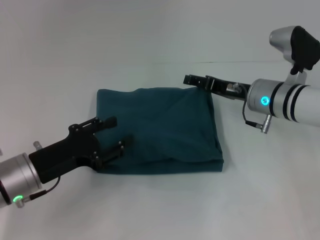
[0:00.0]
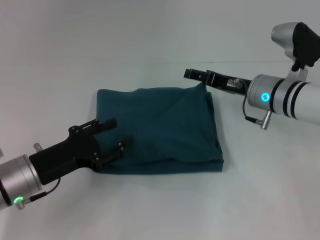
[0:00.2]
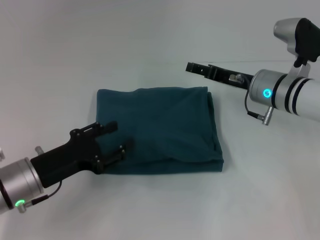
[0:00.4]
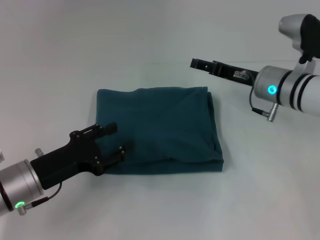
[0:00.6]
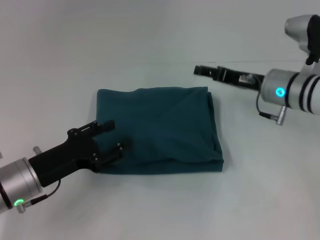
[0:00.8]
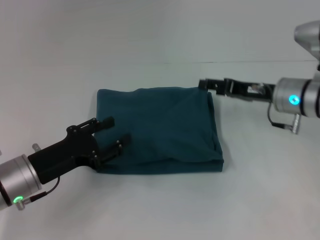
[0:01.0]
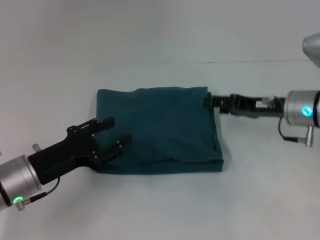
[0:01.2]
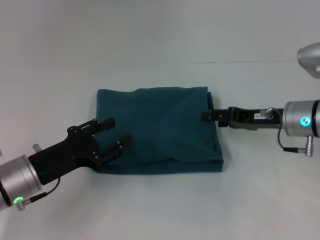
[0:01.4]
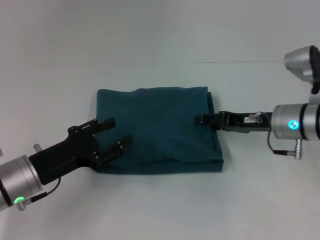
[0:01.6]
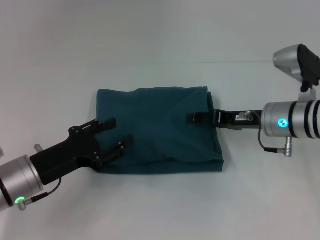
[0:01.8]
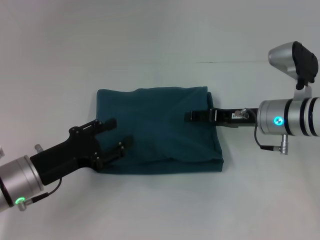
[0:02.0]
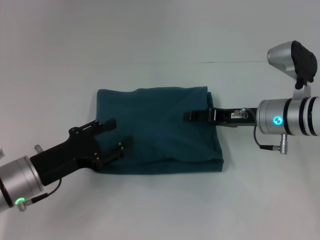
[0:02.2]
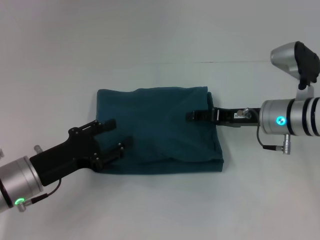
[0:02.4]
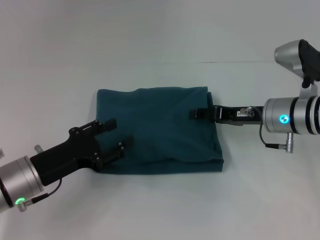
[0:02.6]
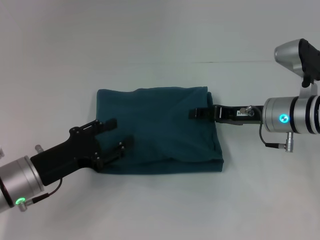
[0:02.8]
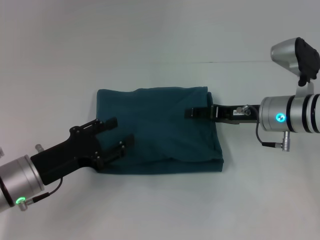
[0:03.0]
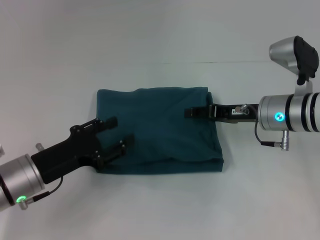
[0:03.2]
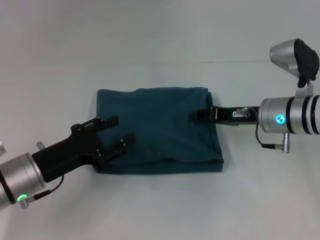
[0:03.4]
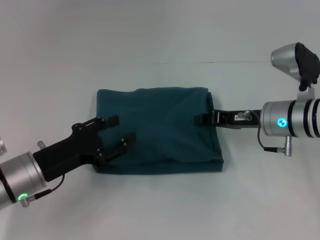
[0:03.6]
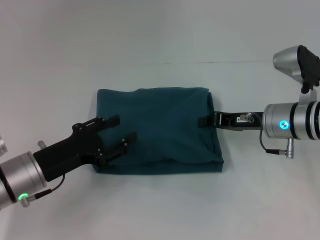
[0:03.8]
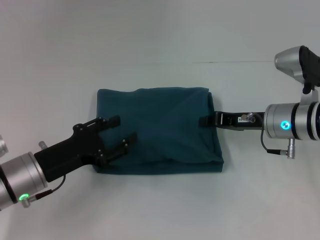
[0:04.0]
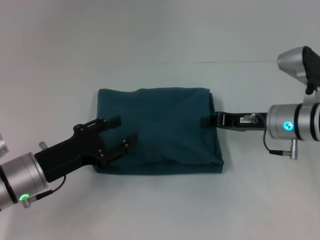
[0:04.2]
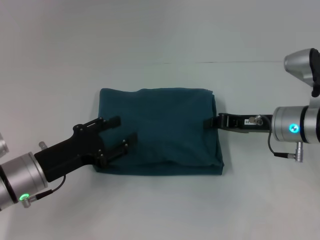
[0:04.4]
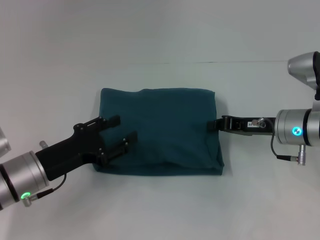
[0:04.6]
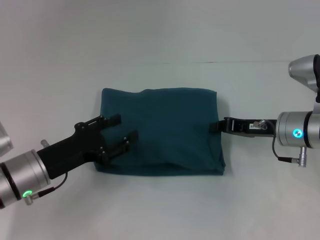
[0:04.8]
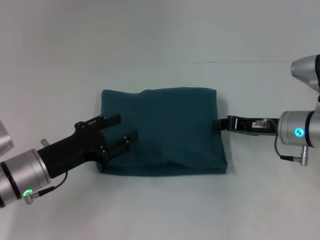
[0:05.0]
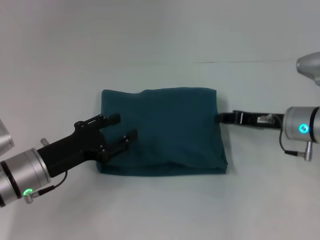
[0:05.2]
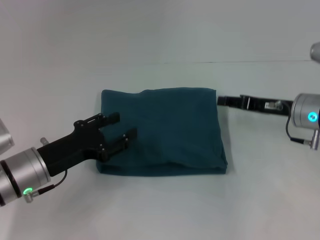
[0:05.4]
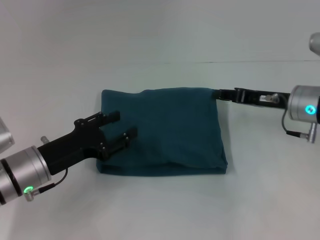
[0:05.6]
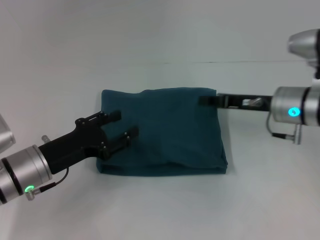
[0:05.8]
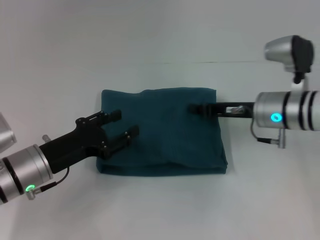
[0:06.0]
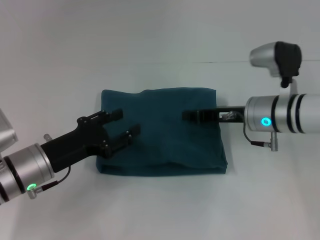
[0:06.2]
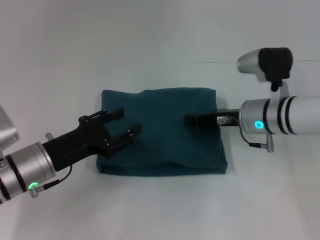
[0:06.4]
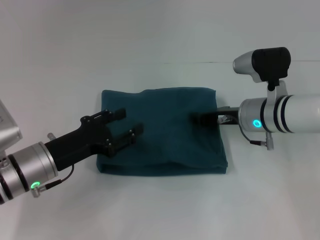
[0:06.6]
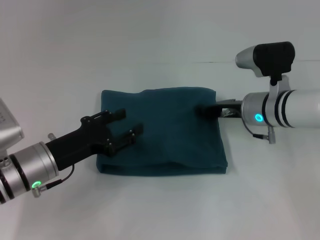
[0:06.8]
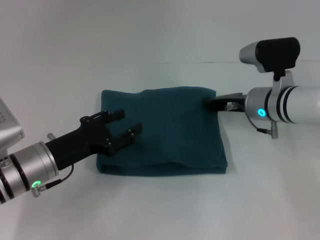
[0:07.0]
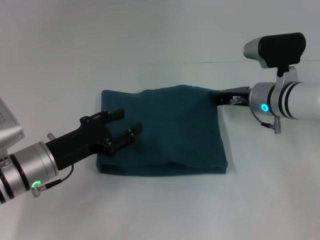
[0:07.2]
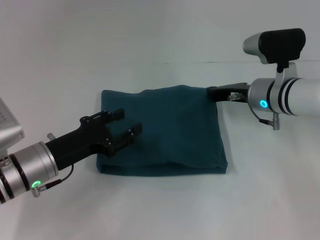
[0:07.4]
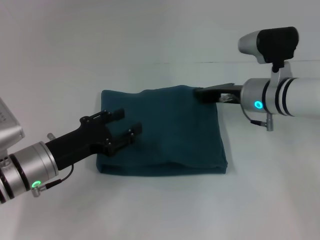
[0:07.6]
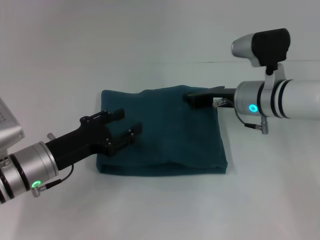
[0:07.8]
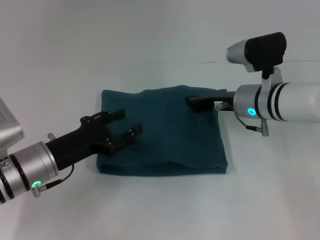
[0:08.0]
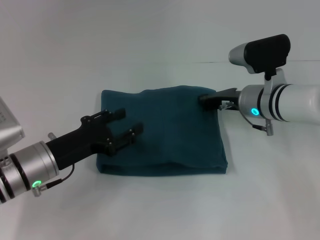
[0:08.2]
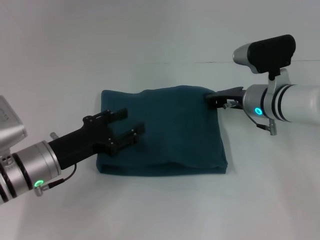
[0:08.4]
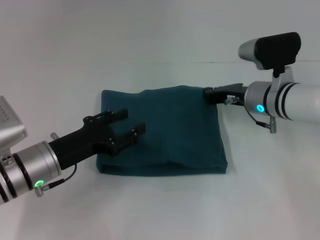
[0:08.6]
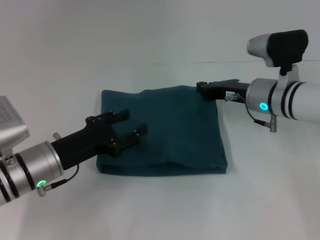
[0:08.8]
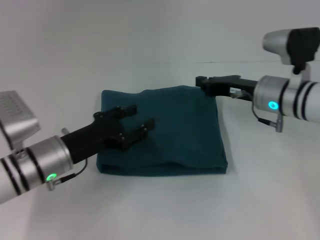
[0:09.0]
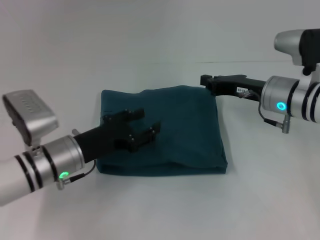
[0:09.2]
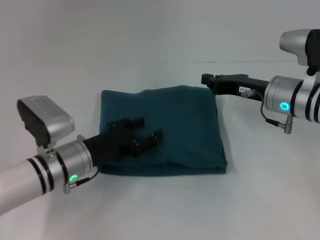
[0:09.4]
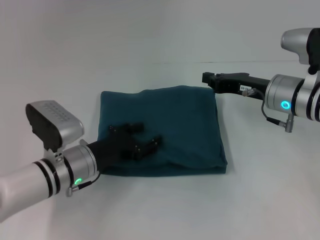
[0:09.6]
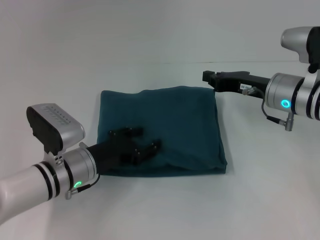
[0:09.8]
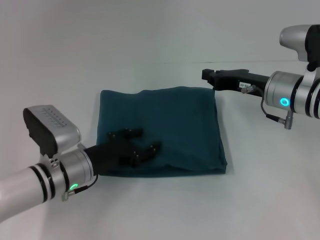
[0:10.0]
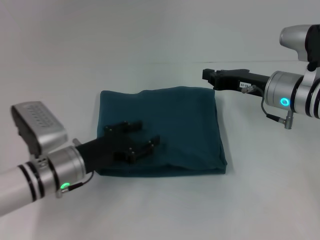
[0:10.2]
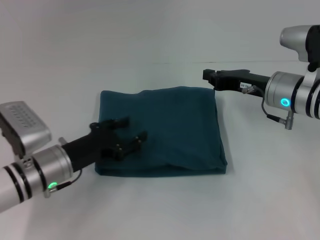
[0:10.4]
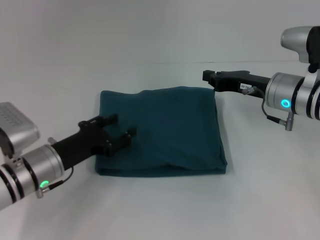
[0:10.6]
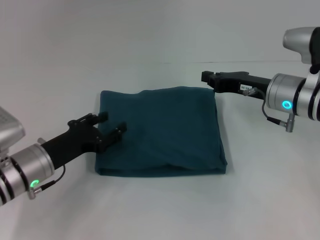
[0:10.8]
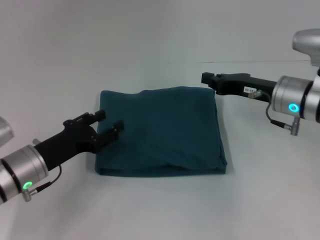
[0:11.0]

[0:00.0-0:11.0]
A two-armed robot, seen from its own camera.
0:00.0 to 0:03.2: The grippers stay close to where they were, moving slightly.
0:03.2 to 0:04.8: The right gripper closes.
0:04.8 to 0:06.2: The right gripper shifts by some 5 cm, and opens and closes again.
0:07.8 to 0:09.4: The left gripper ends up some 5 cm from where it was.
0:09.4 to 0:11.0: The left gripper goes approximately 5 cm to the left.

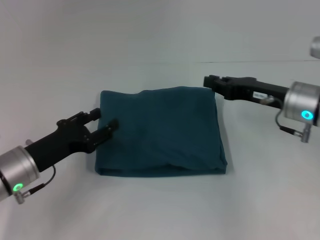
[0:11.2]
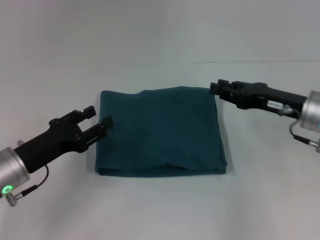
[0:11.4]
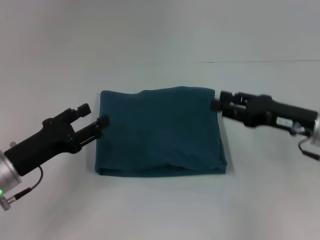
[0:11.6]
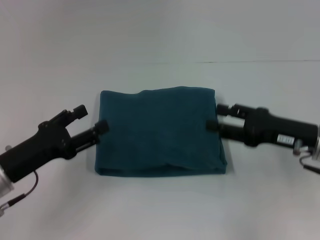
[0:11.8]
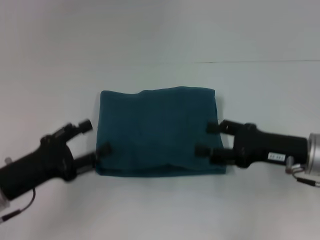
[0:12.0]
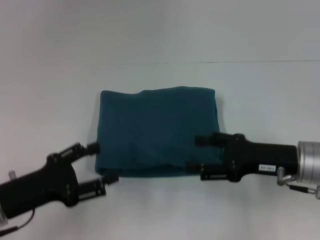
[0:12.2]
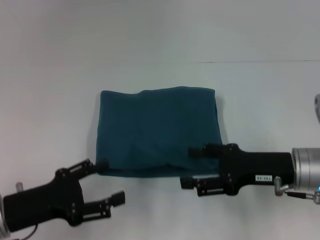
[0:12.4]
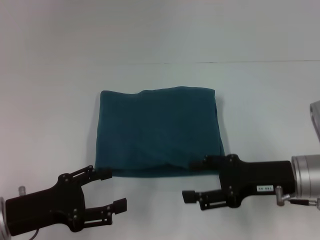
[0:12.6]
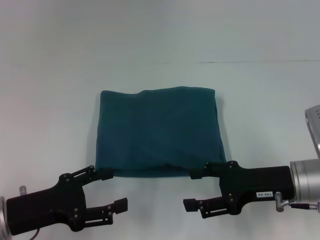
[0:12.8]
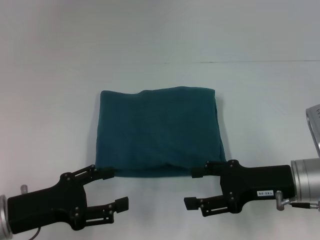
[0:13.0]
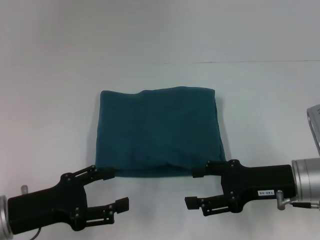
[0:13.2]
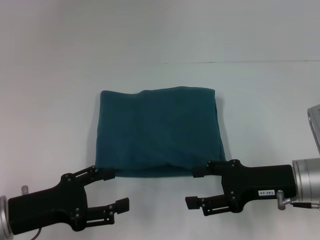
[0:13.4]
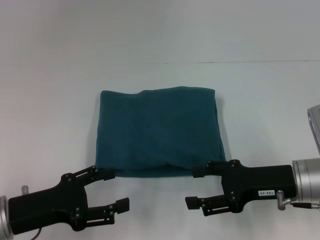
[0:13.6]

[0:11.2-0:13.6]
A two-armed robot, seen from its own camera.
0:11.2 to 0:12.4: The two grippers go approximately 5 cm backward. The right gripper opens its fingers.
0:12.4 to 0:13.6: The grippers stay close to where they were, moving slightly.

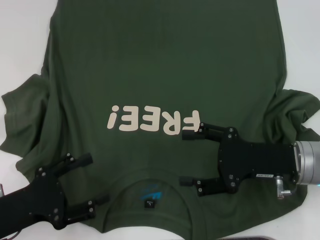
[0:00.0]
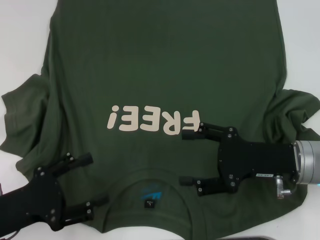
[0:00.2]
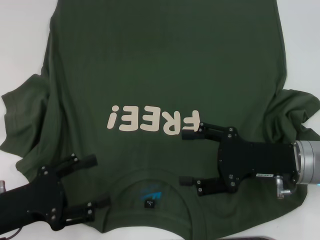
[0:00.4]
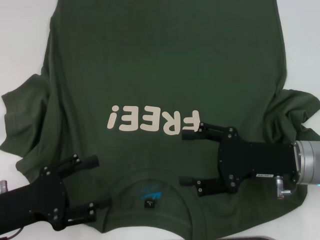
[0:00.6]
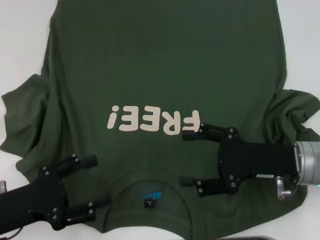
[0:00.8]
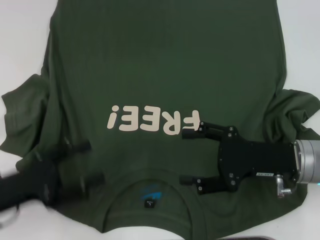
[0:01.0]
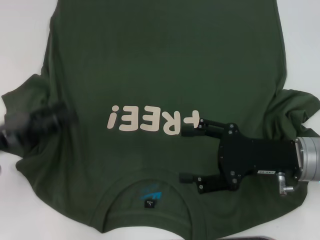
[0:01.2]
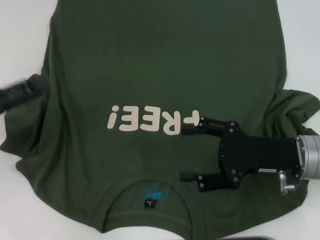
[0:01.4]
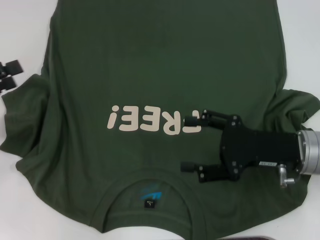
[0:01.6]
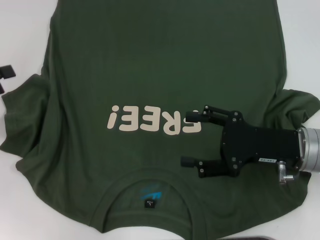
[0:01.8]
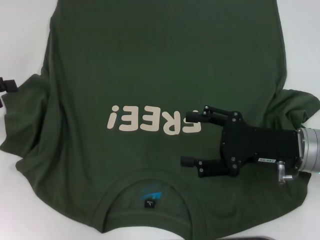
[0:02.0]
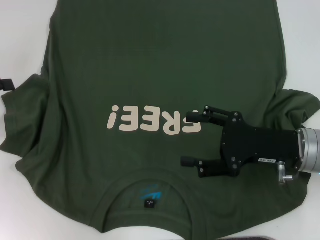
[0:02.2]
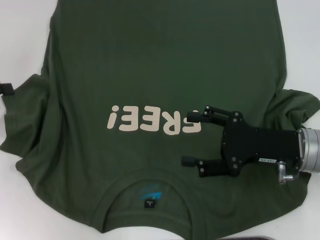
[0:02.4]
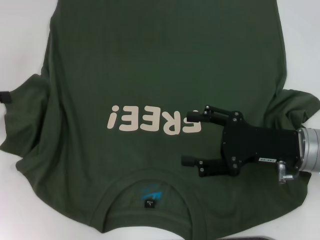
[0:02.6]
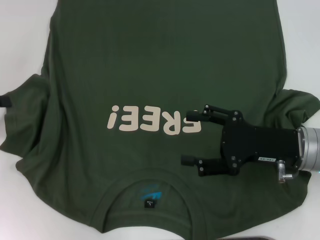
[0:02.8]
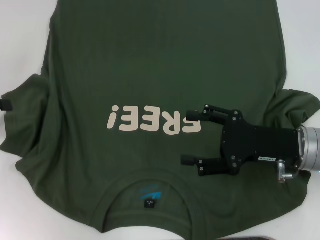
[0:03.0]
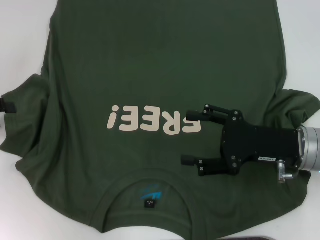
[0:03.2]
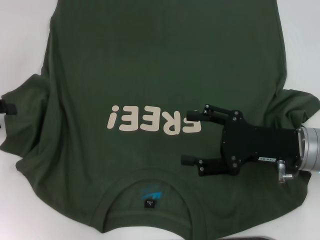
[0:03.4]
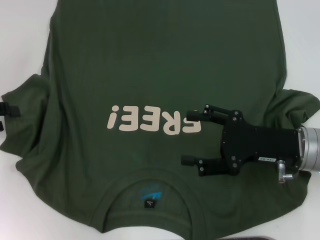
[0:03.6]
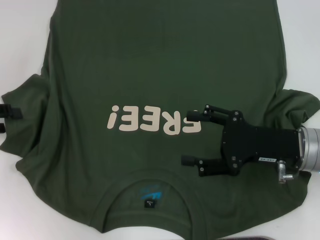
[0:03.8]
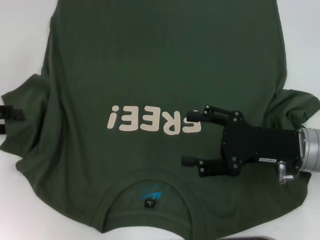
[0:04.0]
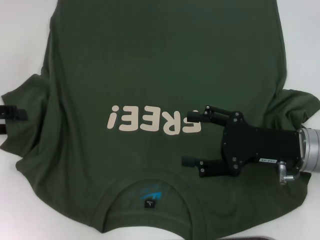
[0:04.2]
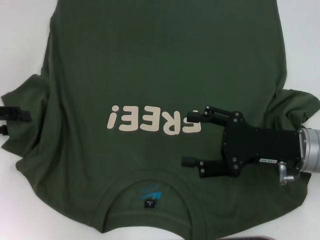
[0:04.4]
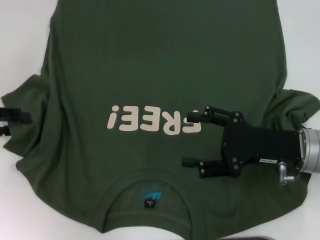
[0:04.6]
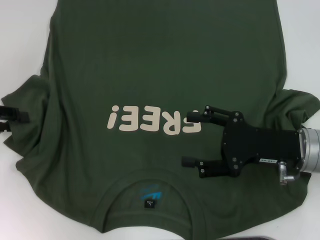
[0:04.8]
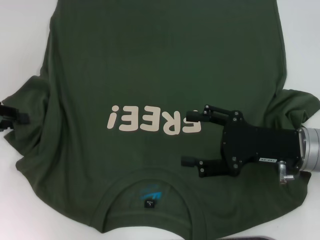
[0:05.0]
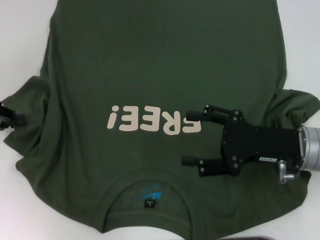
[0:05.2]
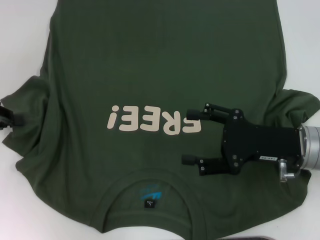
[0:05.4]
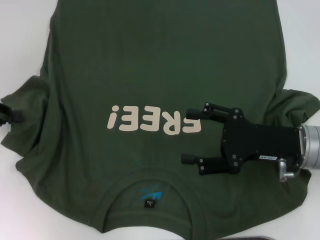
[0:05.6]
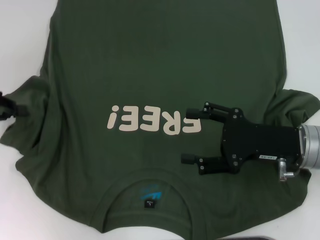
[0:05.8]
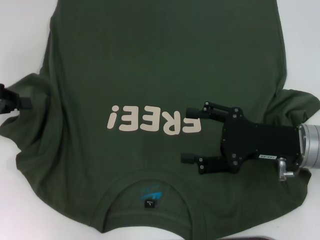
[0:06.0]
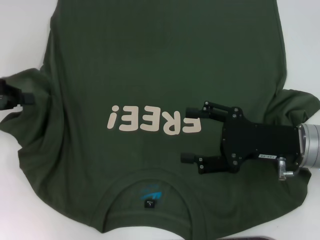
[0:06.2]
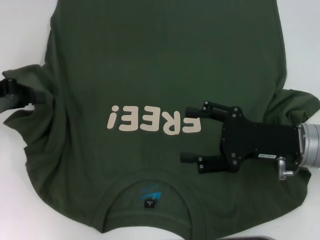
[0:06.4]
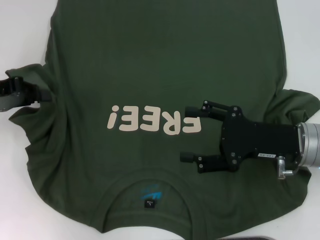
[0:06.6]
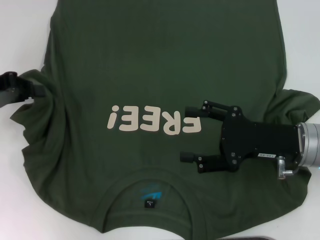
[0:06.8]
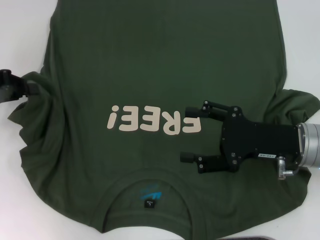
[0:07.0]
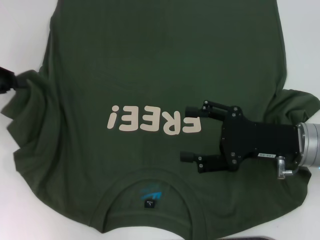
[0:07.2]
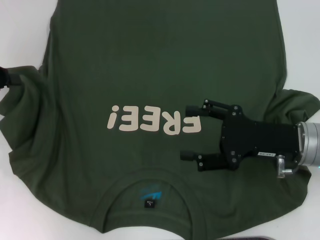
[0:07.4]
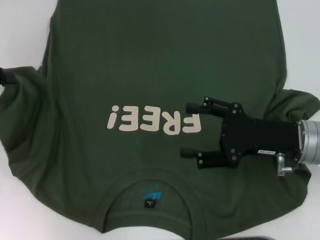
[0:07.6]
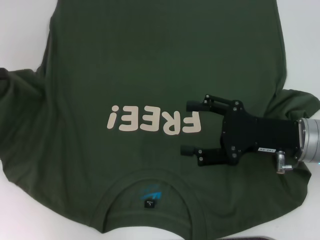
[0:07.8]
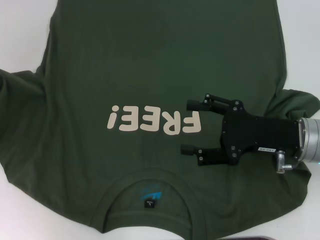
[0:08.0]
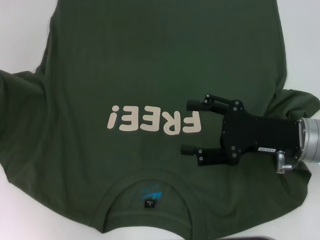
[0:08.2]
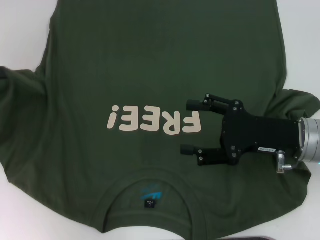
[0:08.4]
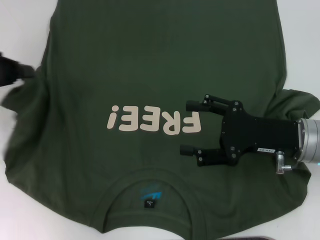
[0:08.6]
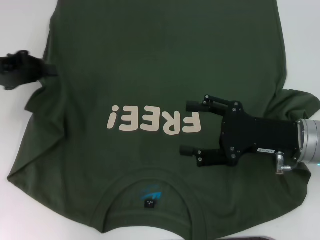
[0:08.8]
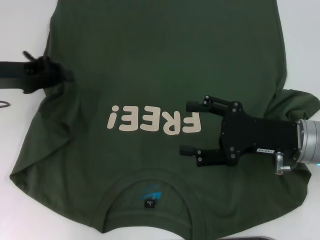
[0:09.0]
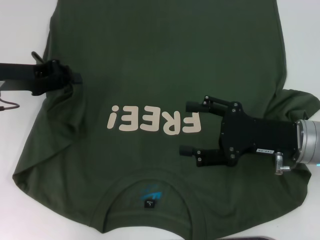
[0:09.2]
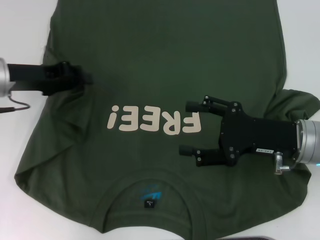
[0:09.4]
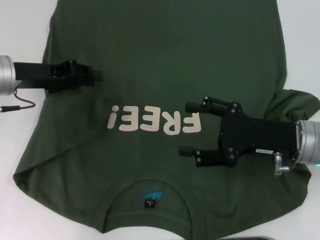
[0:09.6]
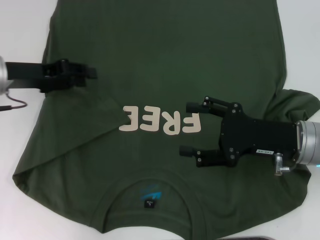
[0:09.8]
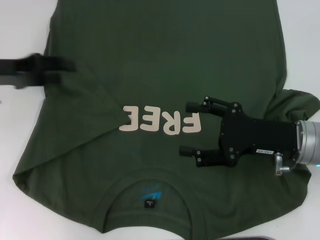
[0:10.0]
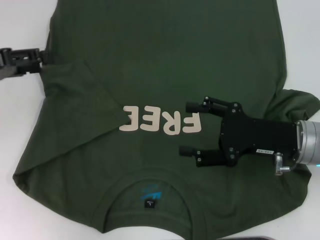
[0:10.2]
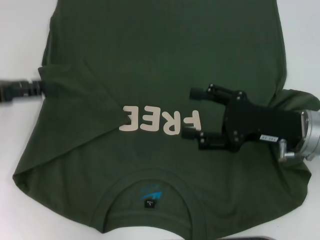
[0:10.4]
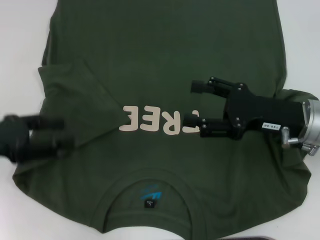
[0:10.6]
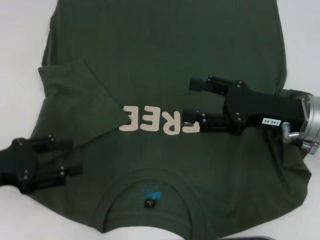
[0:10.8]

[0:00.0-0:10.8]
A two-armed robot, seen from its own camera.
Step, 0:00.0 to 0:09.8: Fold the bottom left sleeve with your left hand.
0:00.0 to 0:01.6: The left gripper heads forward, to the left and upward, covering about 15 cm.
0:03.0 to 0:04.6: The grippers stay close to where they were, moving slightly.
0:04.6 to 0:06.2: The left gripper closes its fingers.
0:06.2 to 0:07.8: The grippers move only a little.
0:07.8 to 0:09.2: The left gripper goes approximately 10 cm to the right.
0:09.2 to 0:10.8: The left gripper goes some 15 cm backward, and opens its fingers.
